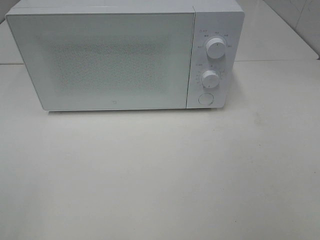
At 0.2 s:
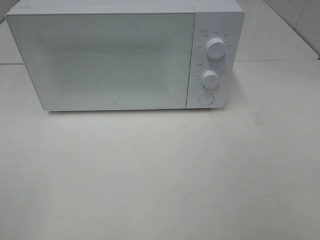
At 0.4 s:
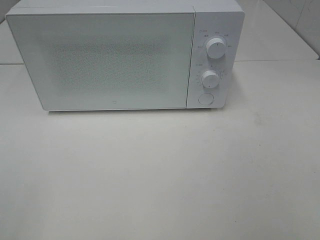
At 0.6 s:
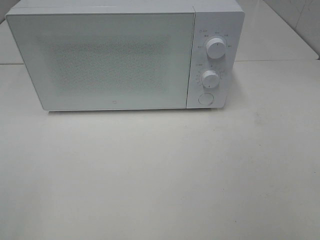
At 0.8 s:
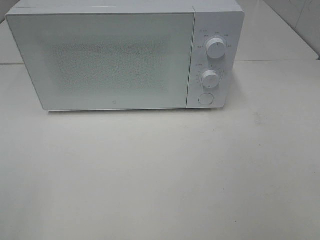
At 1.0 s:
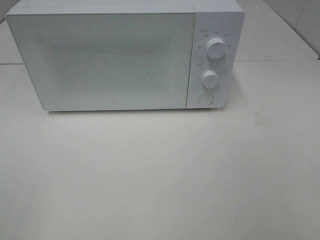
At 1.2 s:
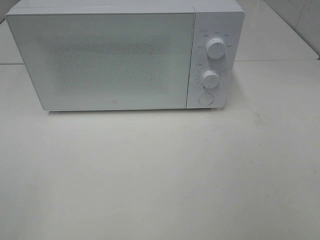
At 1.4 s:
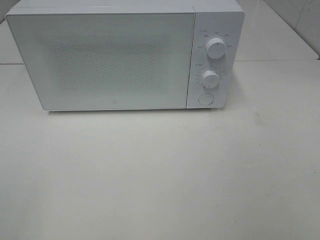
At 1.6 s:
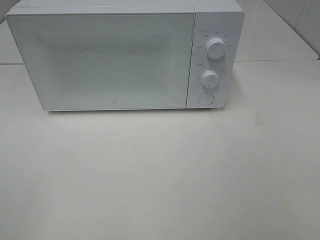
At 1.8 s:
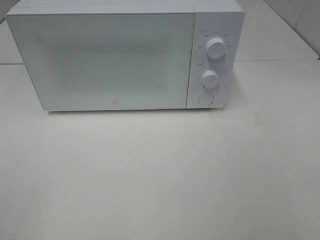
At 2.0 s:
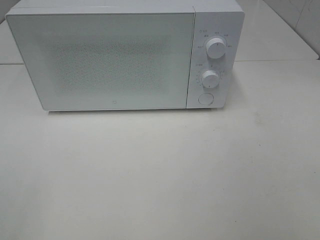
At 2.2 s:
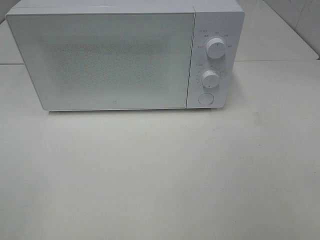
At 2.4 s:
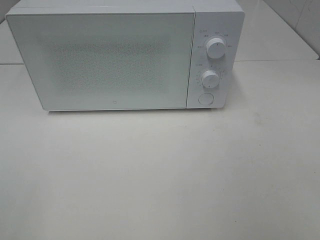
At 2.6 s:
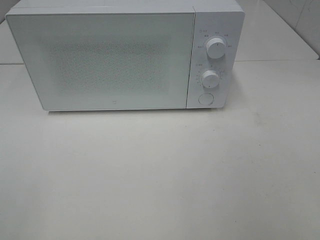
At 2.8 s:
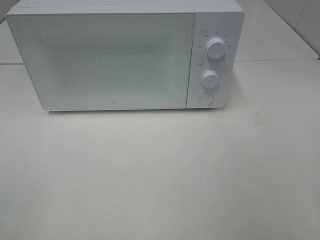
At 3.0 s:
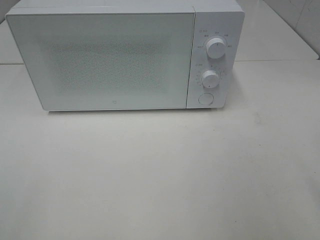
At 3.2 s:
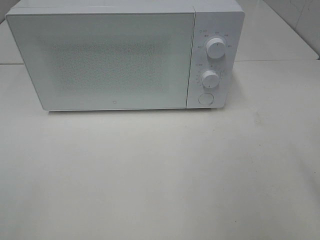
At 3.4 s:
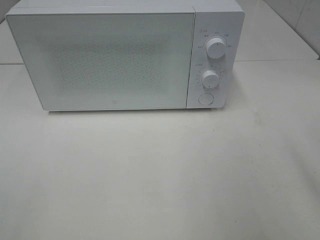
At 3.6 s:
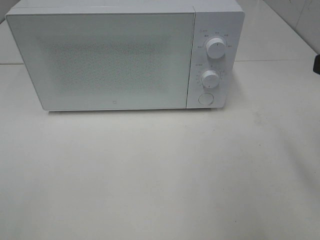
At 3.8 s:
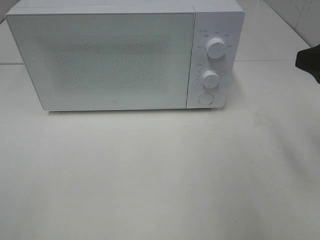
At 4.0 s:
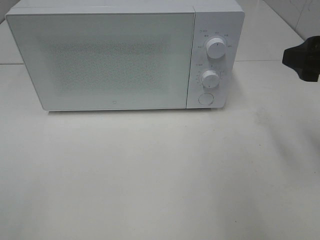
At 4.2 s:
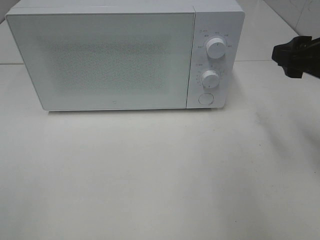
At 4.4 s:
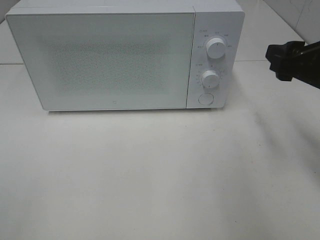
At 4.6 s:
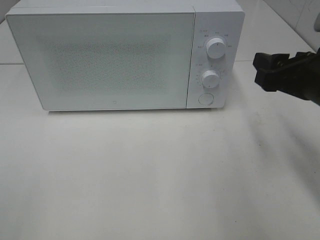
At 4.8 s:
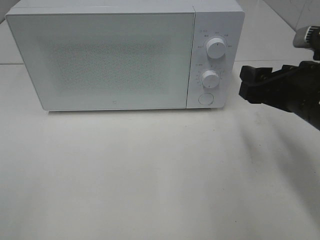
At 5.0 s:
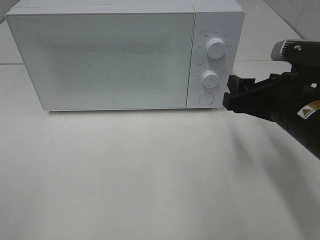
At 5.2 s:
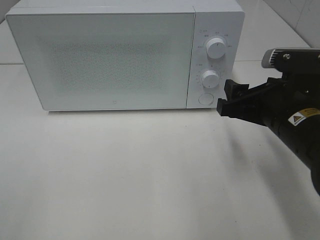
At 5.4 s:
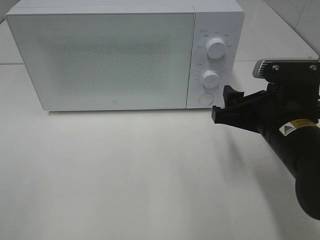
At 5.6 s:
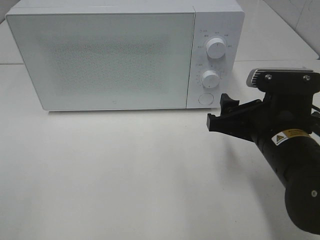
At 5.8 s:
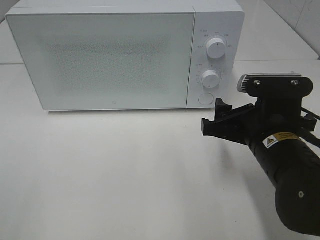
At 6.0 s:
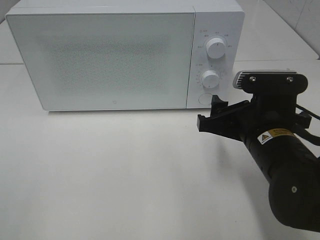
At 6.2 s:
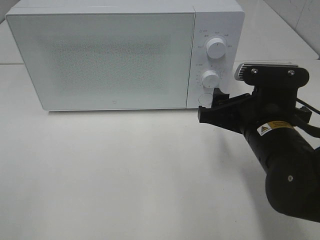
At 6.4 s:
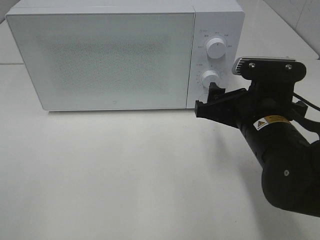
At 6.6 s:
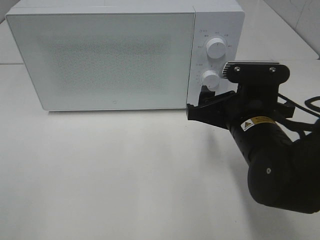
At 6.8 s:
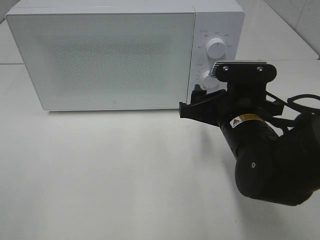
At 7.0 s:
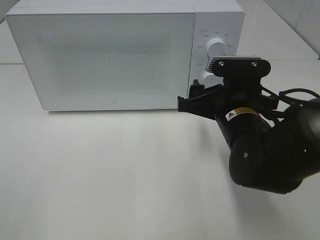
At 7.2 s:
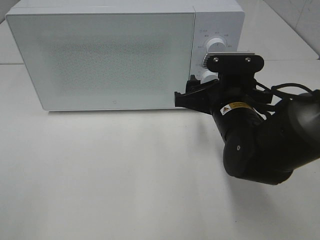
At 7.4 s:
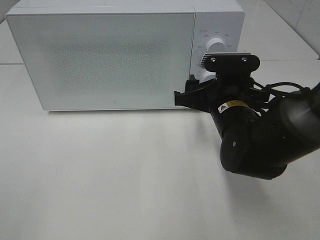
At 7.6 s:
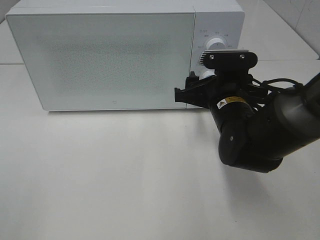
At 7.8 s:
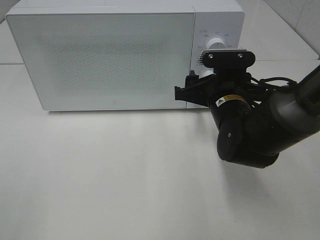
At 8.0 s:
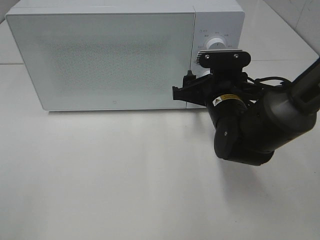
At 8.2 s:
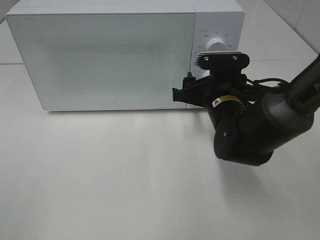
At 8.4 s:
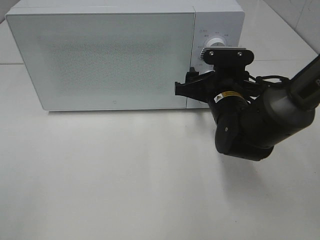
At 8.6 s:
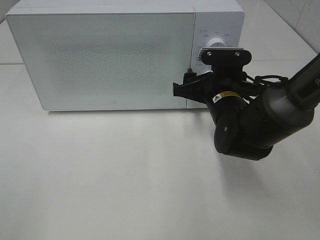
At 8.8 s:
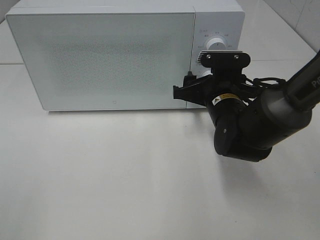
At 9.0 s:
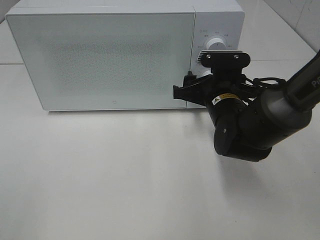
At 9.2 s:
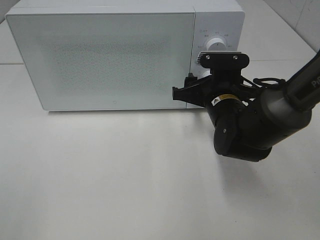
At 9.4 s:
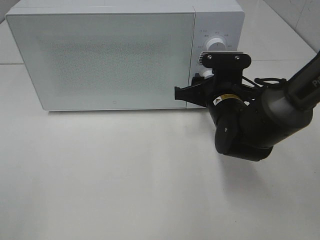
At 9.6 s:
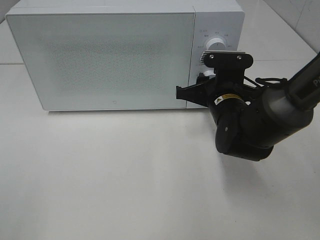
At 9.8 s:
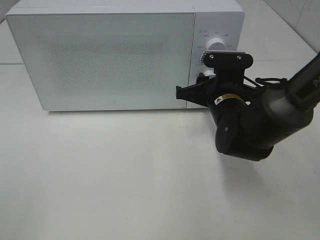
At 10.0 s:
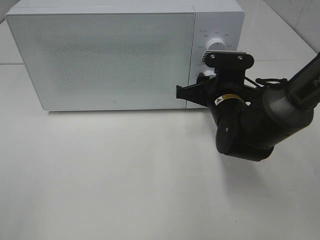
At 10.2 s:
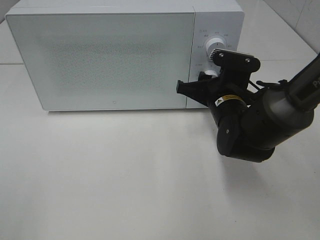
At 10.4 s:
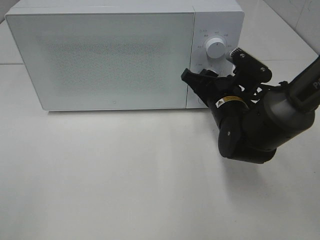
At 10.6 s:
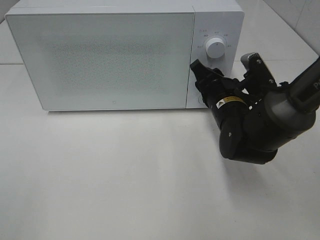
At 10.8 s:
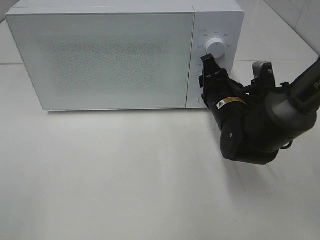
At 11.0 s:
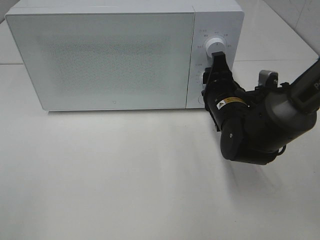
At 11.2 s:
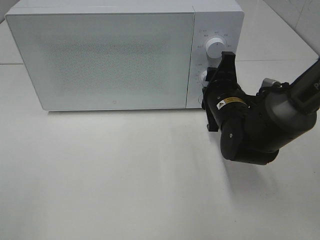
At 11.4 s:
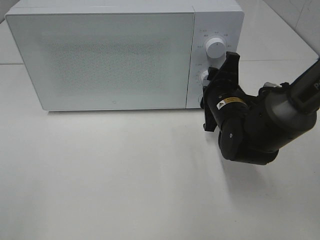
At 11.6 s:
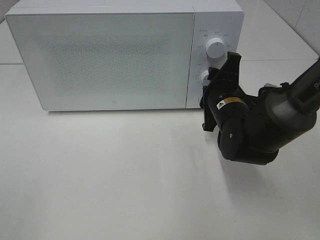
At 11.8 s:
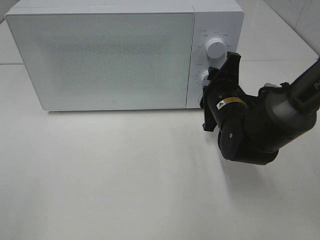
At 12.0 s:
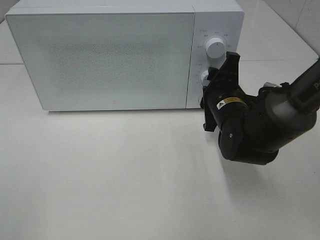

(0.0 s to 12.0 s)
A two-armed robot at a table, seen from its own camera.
Task of the whole recording: Heat the burger.
0.0 s - 1.6 s: Both grippers stay put.
3.0 s - 4.4 s: The right gripper heads forward and downward, covering approximately 15 cm.
4.4 s - 6.0 s: The right gripper goes some 15 cm to the left and downward.
6.0 s - 7.6 s: The right gripper goes some 10 cm forward.
7.6 s - 9.0 s: The grippers stay close to where they were, moving slightly.

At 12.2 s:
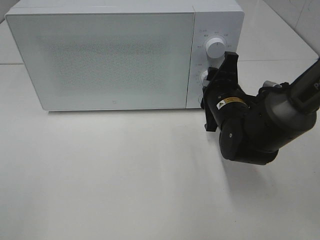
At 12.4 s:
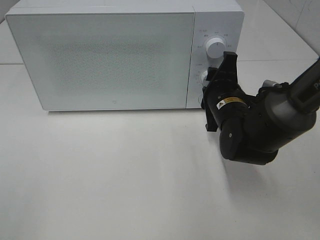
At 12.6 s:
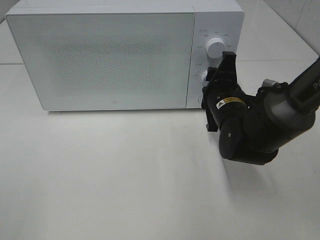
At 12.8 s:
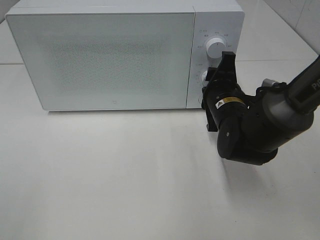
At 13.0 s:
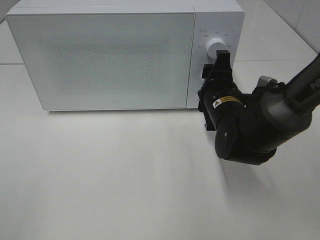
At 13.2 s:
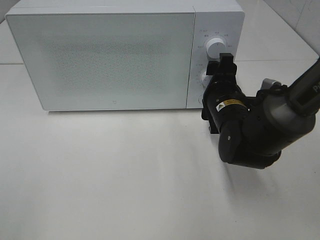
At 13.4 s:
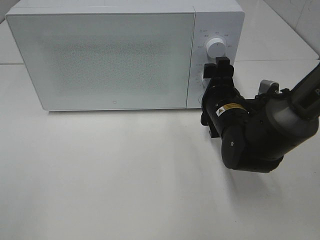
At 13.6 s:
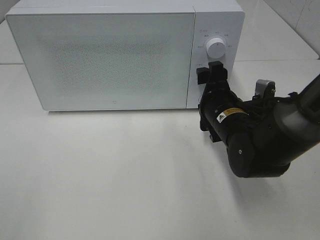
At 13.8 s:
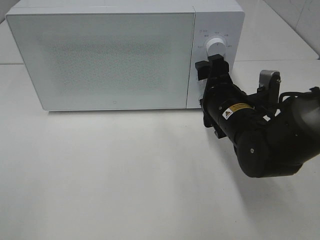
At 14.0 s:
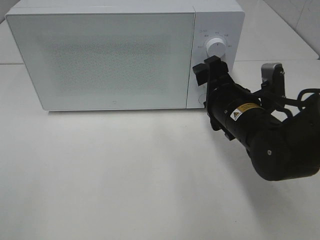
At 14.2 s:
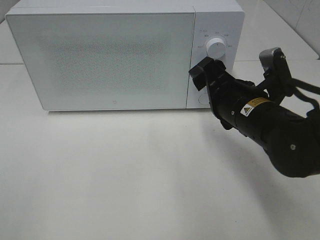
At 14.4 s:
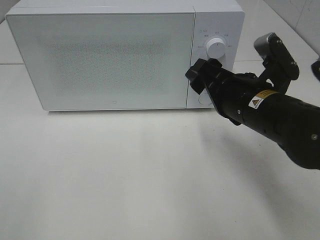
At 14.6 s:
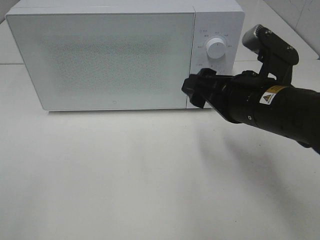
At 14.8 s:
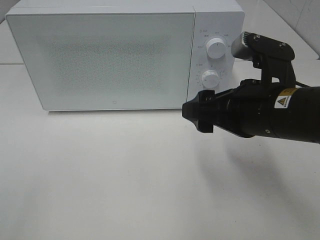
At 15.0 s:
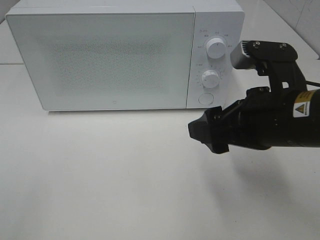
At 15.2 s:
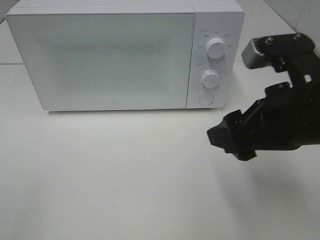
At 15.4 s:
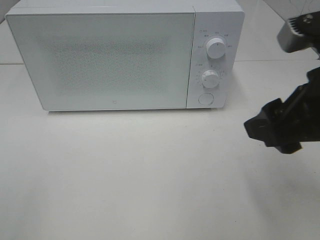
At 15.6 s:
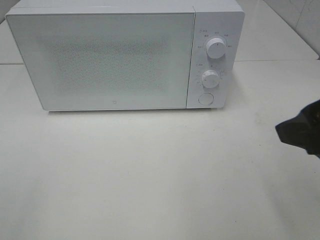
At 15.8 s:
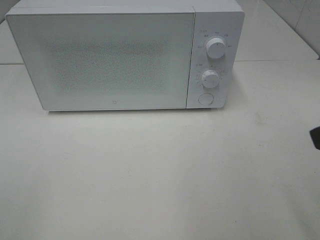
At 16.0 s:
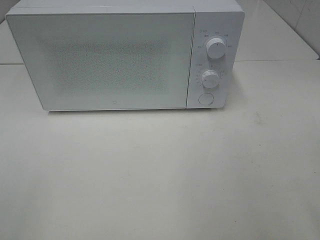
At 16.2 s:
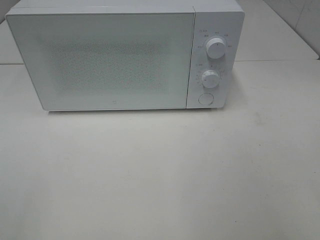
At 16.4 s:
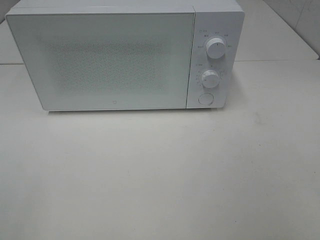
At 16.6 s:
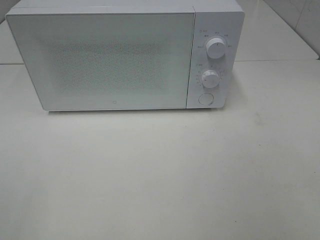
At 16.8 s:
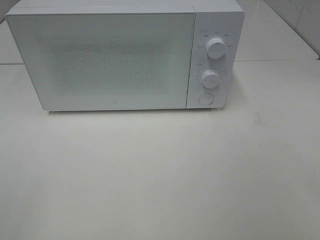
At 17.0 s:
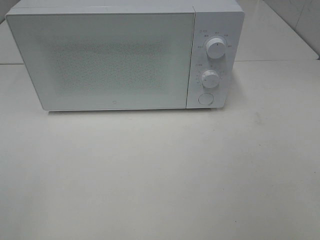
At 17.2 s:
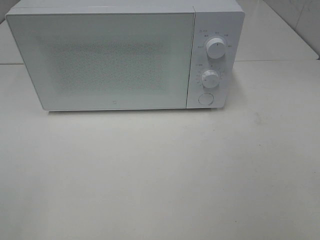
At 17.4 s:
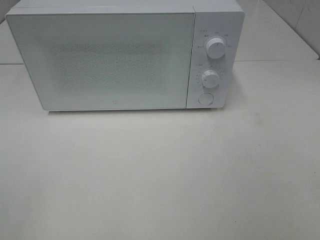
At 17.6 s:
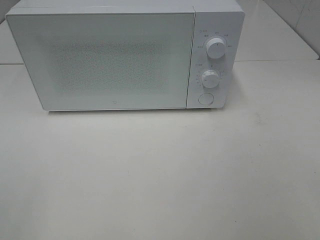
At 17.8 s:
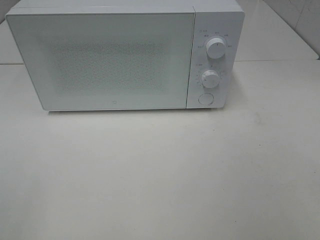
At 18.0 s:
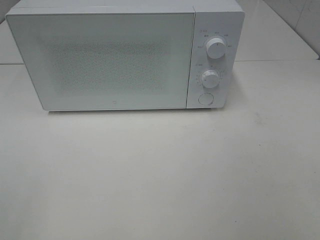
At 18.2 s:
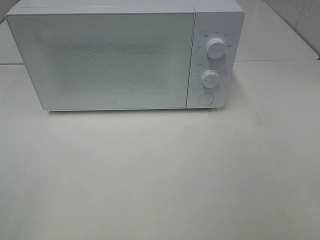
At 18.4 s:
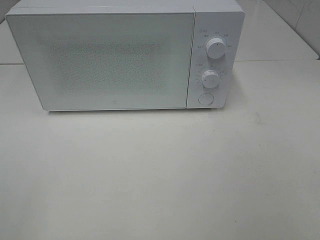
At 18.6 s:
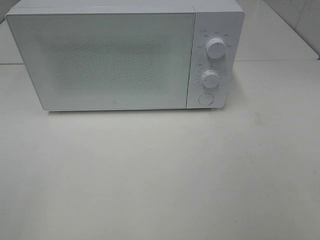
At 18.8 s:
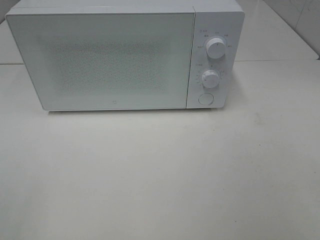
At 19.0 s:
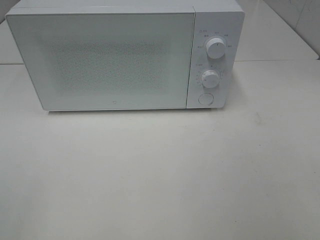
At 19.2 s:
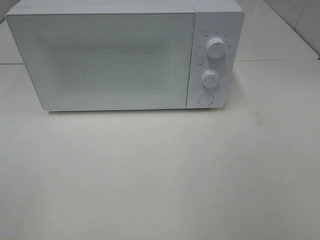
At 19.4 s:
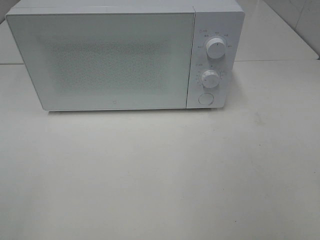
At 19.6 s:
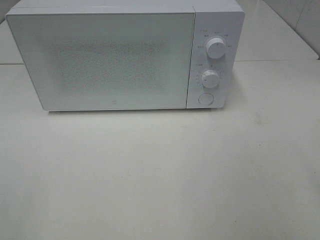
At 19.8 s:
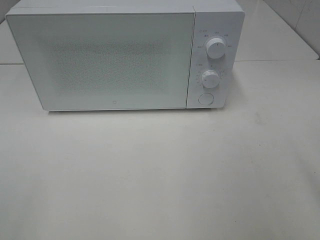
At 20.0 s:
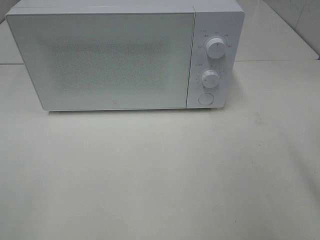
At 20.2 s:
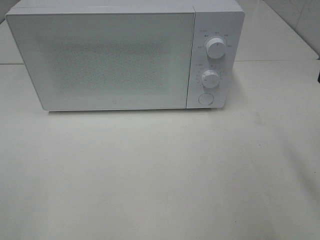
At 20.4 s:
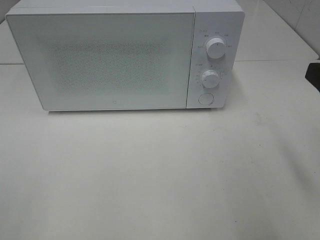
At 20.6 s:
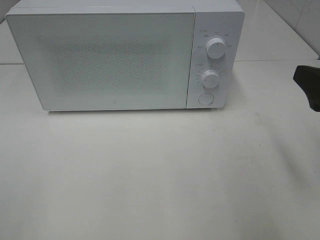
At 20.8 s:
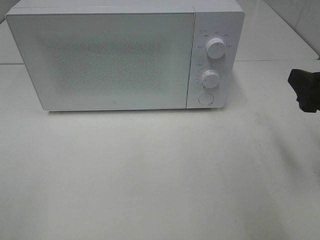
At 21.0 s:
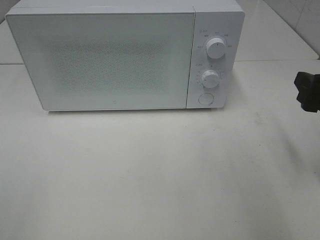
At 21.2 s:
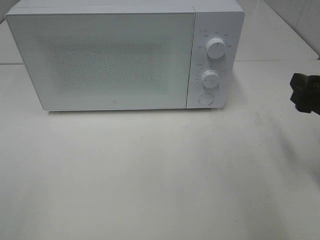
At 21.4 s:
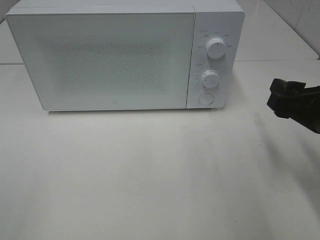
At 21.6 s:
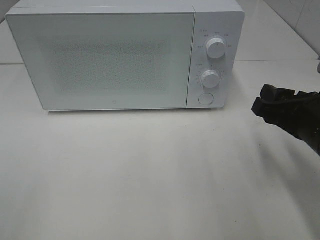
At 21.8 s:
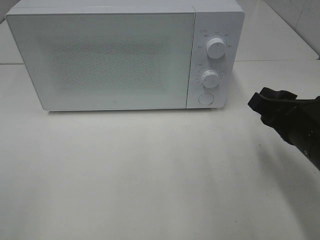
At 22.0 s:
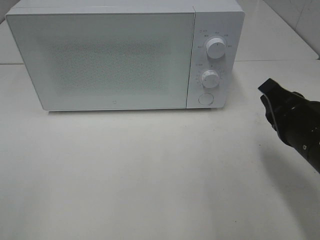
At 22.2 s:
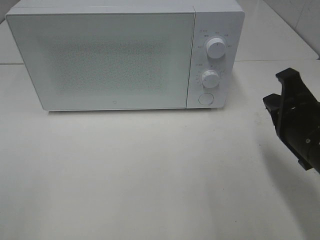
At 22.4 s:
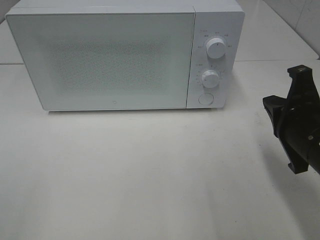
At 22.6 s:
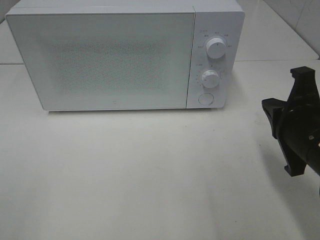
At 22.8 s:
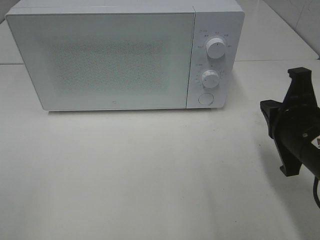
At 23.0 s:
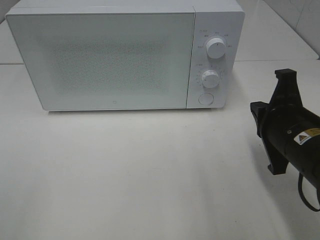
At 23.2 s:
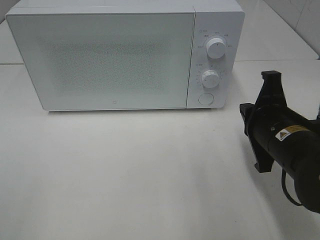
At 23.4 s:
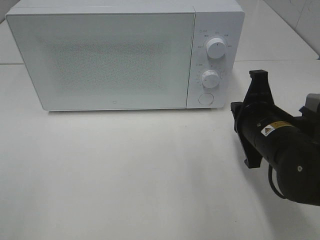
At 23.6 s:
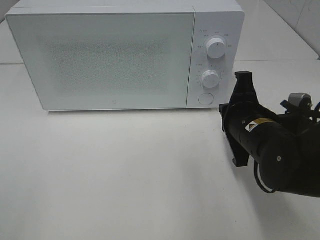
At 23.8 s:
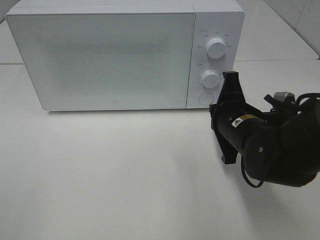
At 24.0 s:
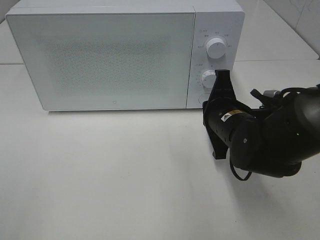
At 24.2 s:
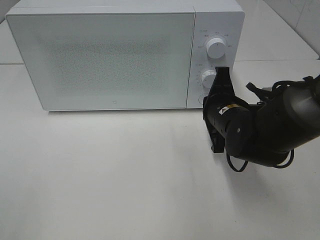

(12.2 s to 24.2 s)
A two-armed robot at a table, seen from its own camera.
Task of the whole recording: Heat the burger.
12.2 s - 13.8 s: The right gripper opens.
13.8 s - 15.2 s: The right gripper moves upward and backward, roughly 15 cm.
15.2 s - 16.6 s: The right gripper shifts roughly 20 cm backward and to the right.
19.8 s - 21.2 s: The right gripper goes about 15 cm forward and downward.
21.2 s - 22.6 s: The right gripper shifts approximately 5 cm to the left, and closes its fingers.
22.6 s - 24.2 s: The right gripper is displaced forward, to the left and downward by about 15 cm.
